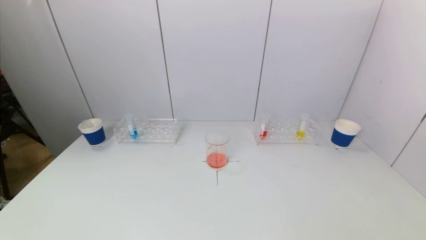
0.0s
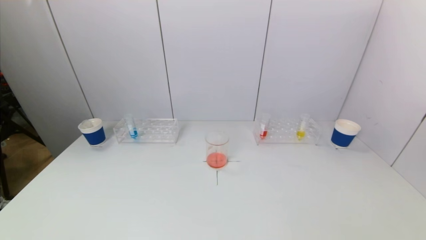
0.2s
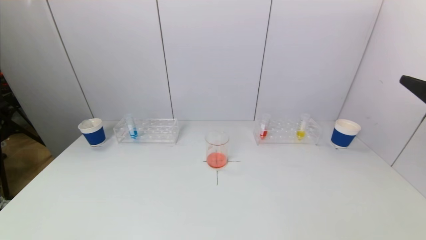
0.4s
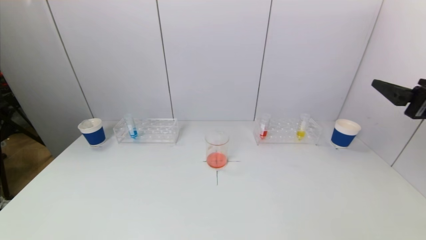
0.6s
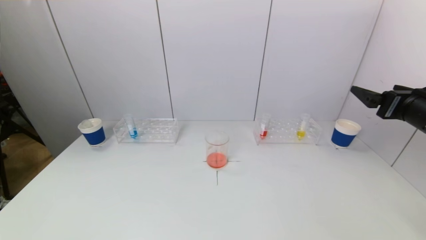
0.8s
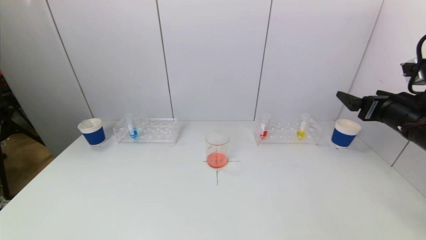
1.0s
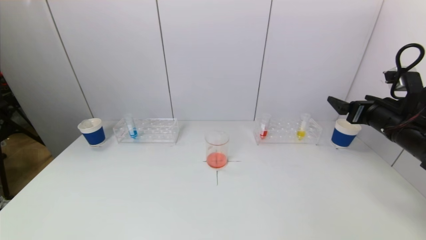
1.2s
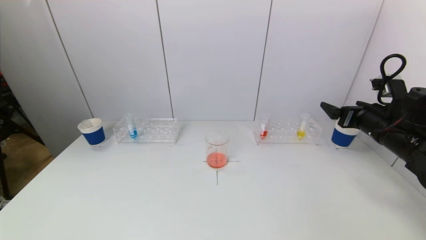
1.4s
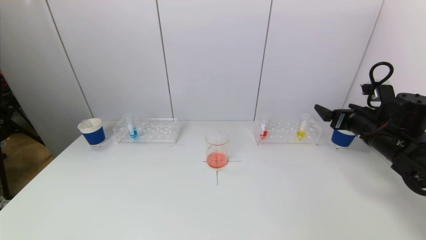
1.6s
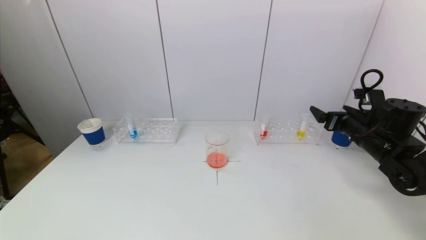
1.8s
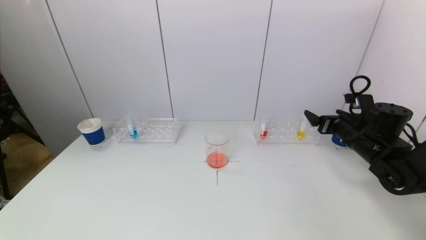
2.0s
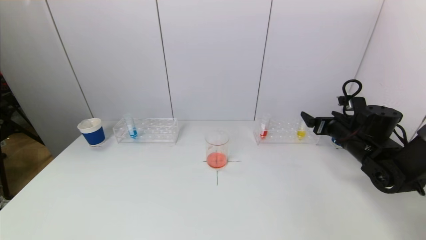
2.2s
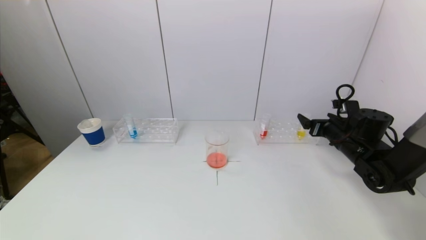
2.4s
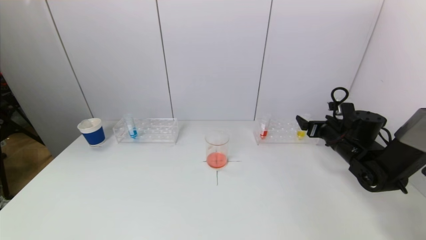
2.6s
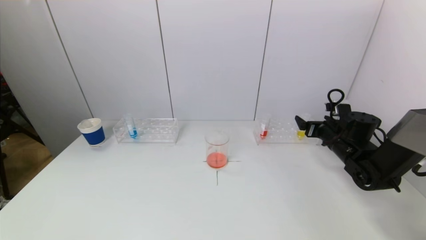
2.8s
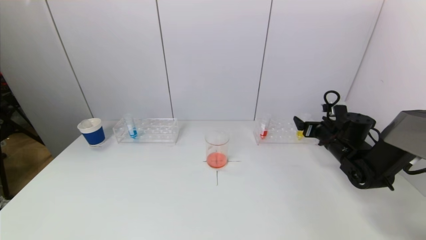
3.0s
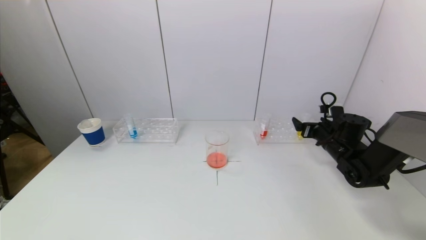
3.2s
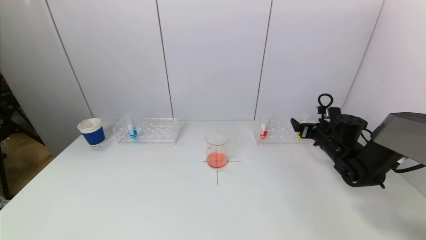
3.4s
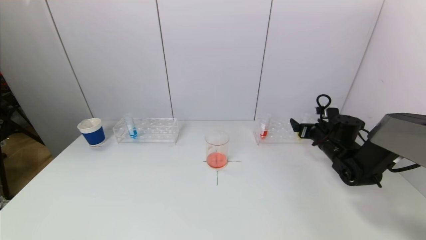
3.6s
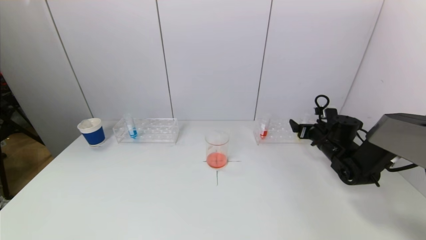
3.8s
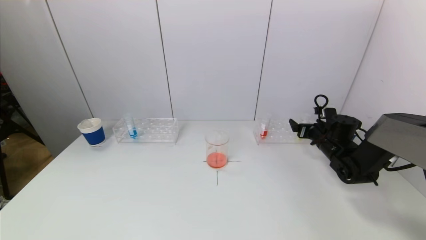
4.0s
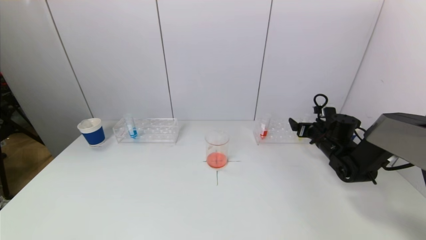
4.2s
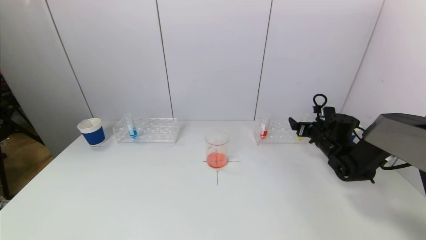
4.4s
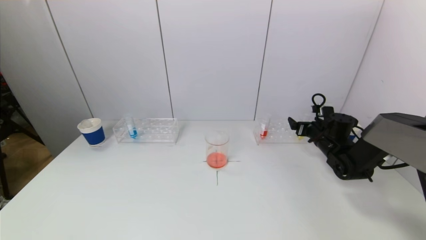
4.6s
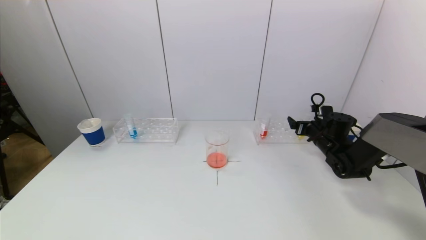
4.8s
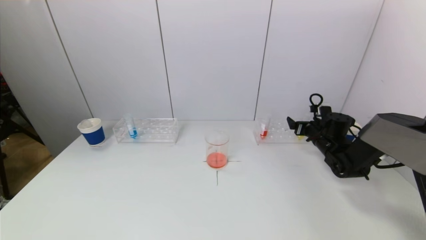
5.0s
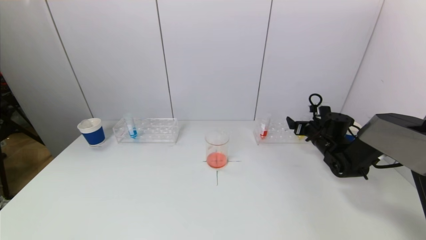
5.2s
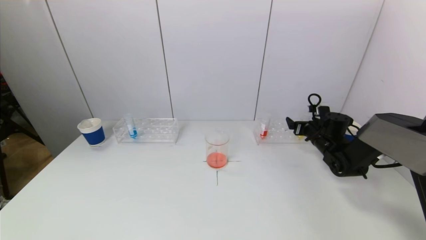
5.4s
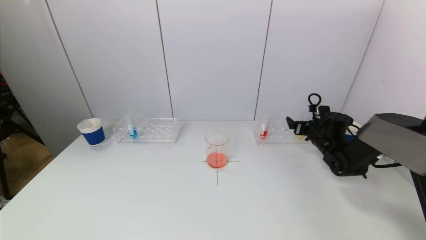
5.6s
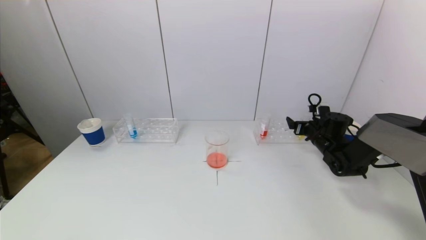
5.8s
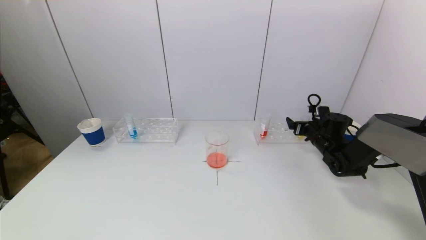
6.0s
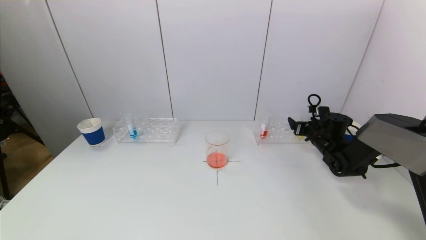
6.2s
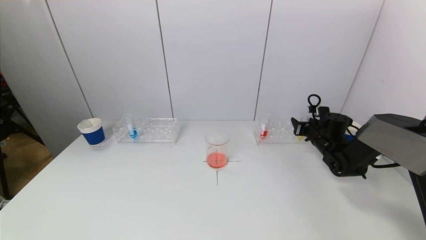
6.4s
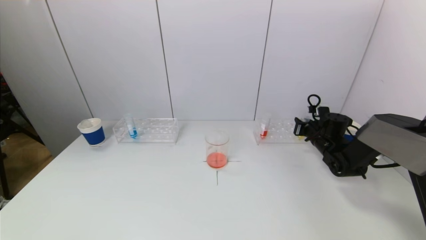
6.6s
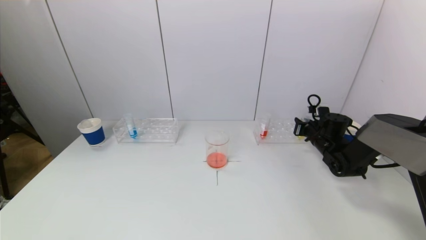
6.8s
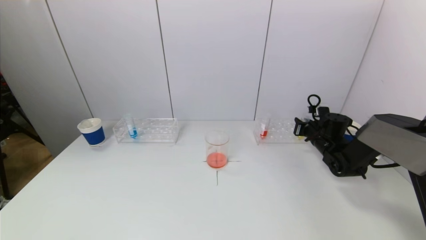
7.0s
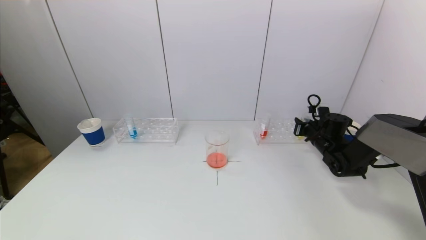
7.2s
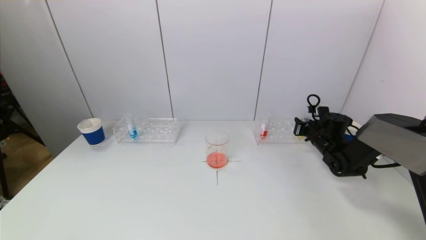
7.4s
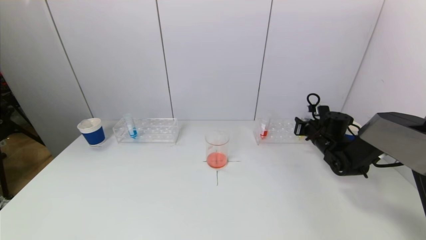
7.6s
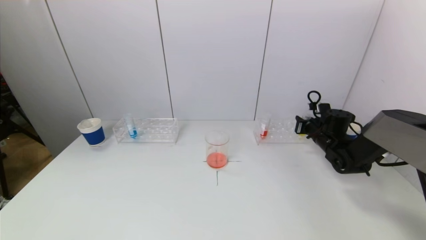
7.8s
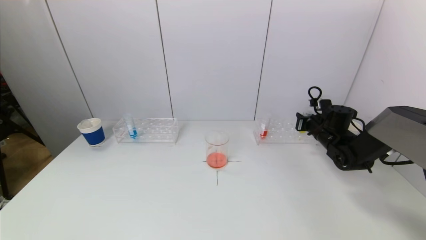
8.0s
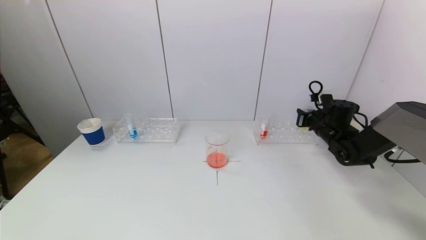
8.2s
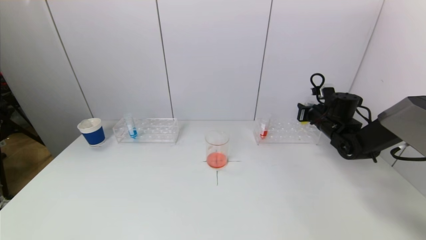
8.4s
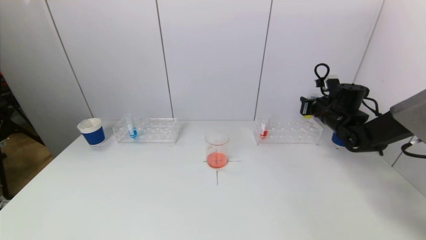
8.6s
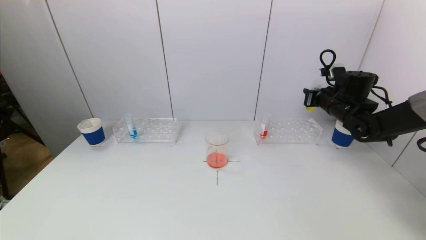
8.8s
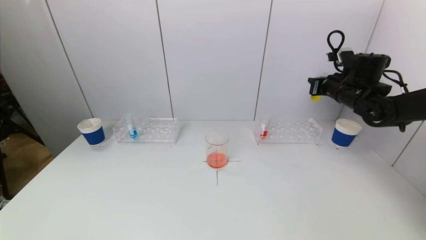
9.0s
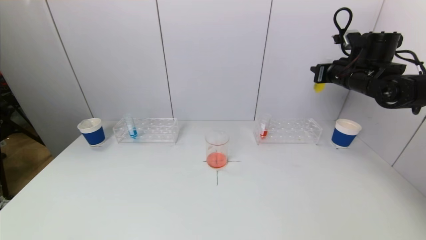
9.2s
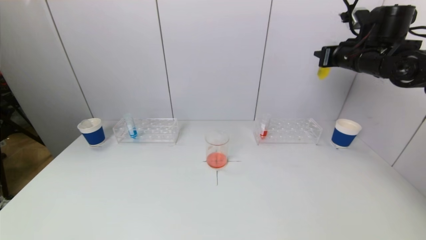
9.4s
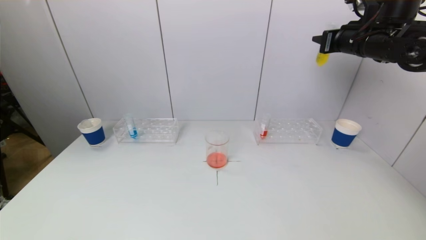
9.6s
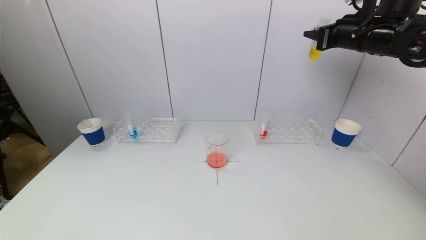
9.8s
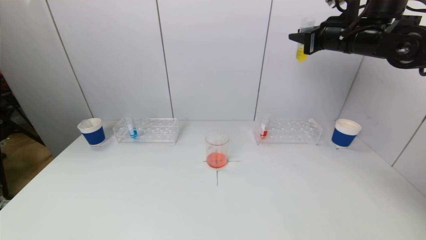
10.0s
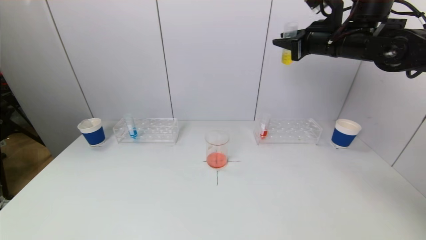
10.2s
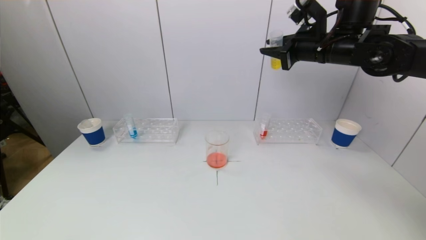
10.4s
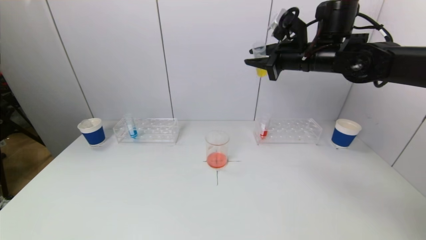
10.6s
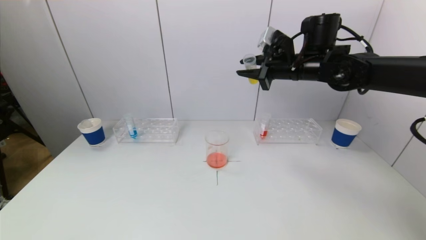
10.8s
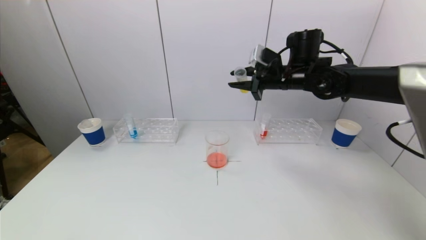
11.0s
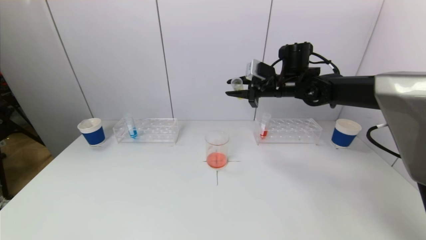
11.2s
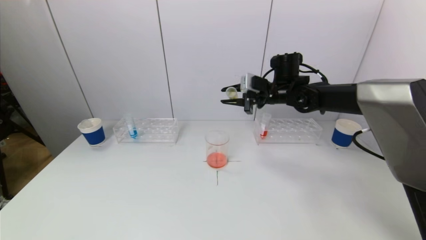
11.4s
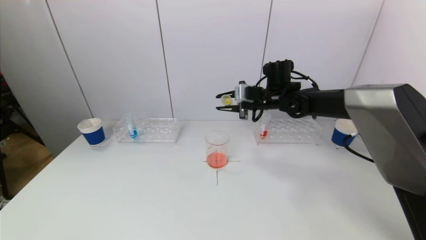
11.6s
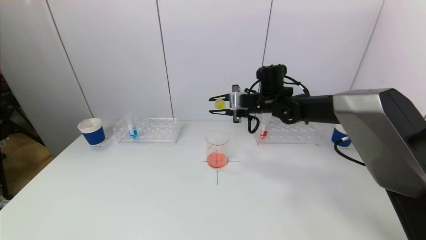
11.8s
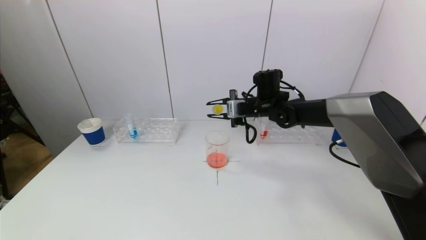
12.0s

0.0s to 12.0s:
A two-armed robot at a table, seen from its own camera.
Task of the whole recording: pick up a test tube with pigment on left test tube rack and a test tube with pigment on right test tube rack by grippers and pour them into the beaker.
Step, 0.0s to 7.2s: Grasp the yellow reagent with the right gripper.
0.0s to 1.6s: The right gripper goes roughly 30 cm forward and downward.
1.6s to 3.0s: The right gripper travels downward and forward by about 10 cm.
3.0s to 4.4s: There are only small adjustments of the grippers.
4.4s to 6.0s: The grippers move only a little.
6.0s to 7.6s: The right gripper closes up.
7.6s to 9.0s: The right gripper goes approximately 15 cm upward.
9.0s to 10.4s: The right gripper goes about 15 cm upward and to the left.
10.4s to 12.0s: The right gripper shifts roughly 20 cm downward and to the left.

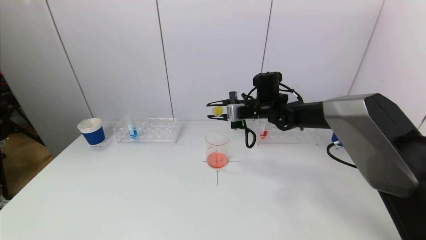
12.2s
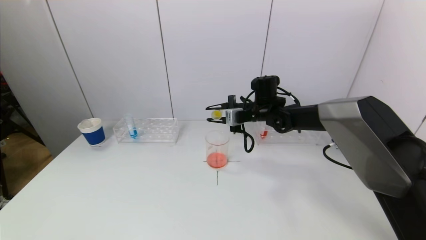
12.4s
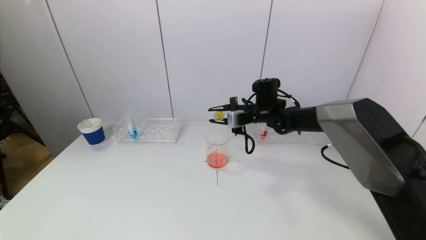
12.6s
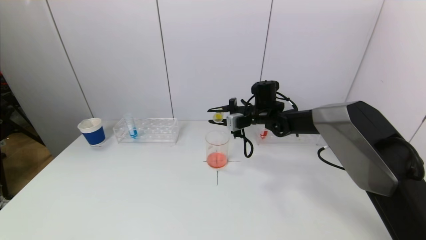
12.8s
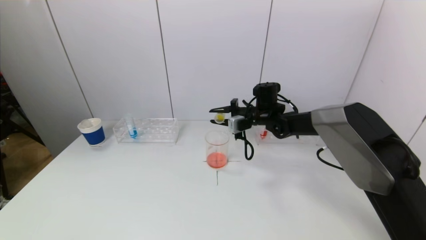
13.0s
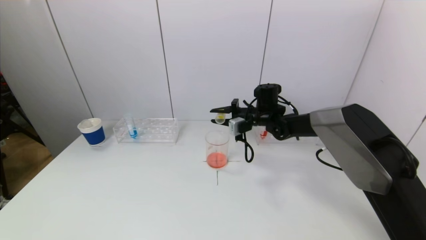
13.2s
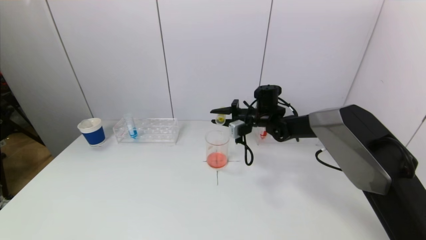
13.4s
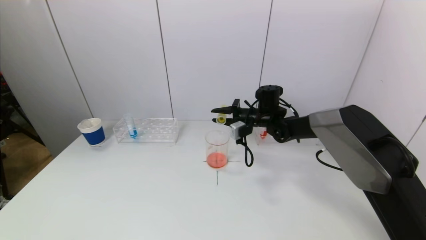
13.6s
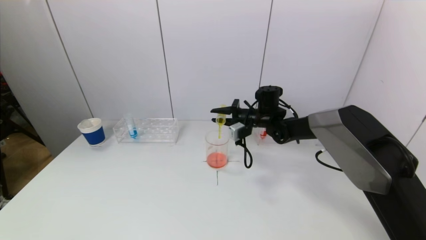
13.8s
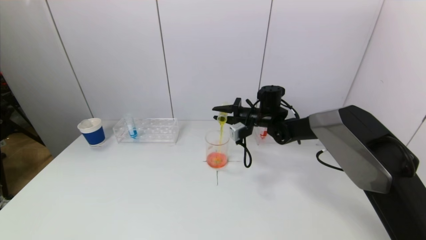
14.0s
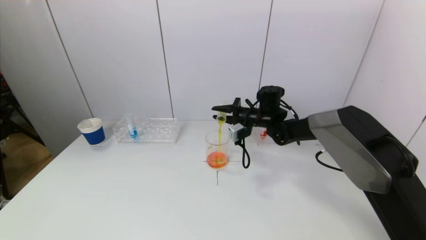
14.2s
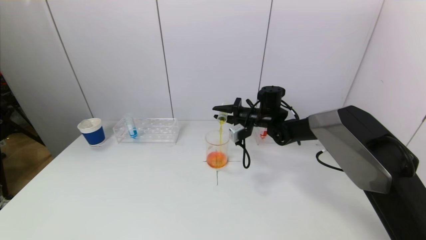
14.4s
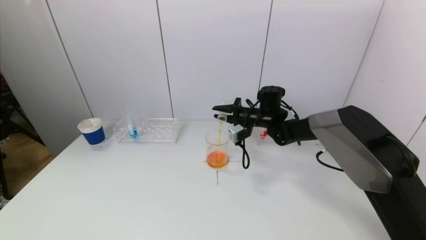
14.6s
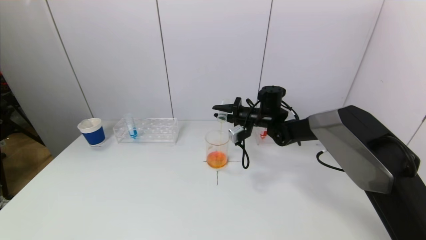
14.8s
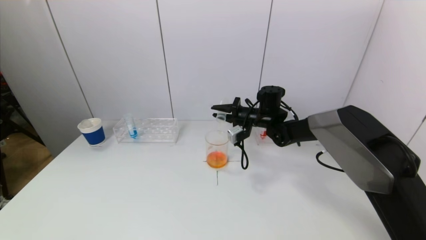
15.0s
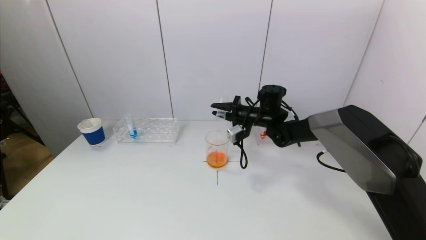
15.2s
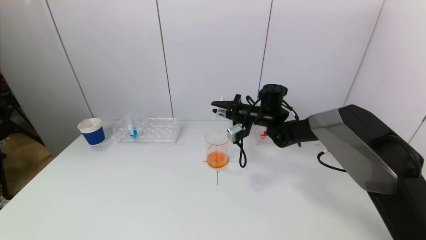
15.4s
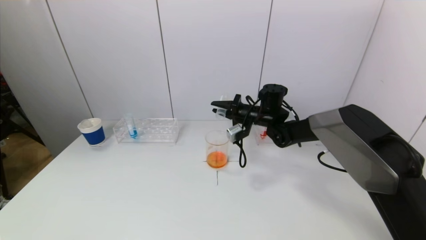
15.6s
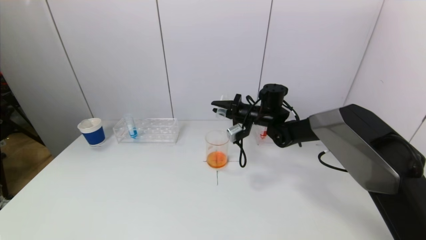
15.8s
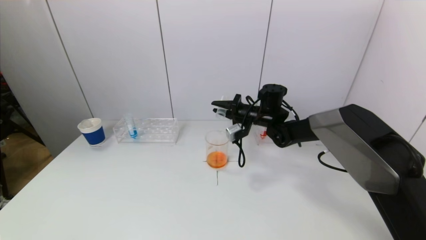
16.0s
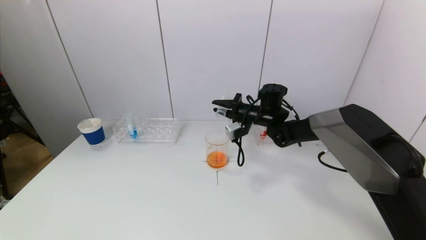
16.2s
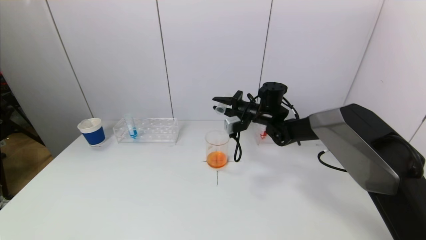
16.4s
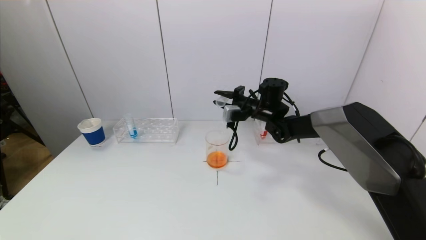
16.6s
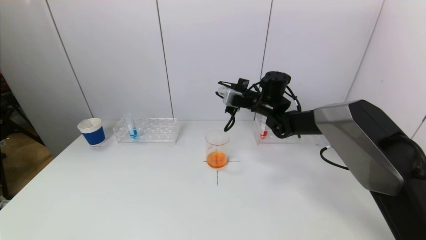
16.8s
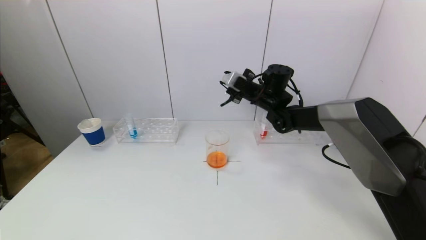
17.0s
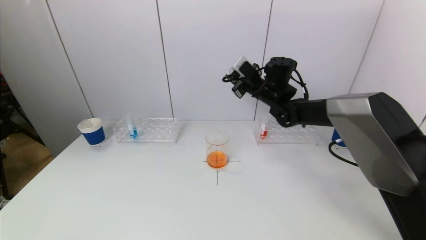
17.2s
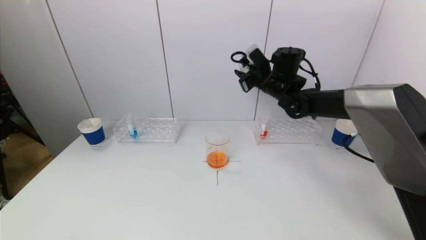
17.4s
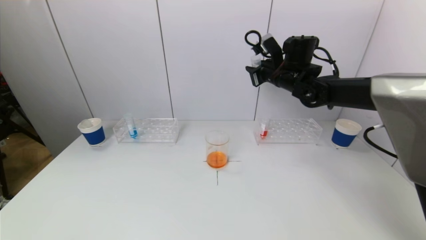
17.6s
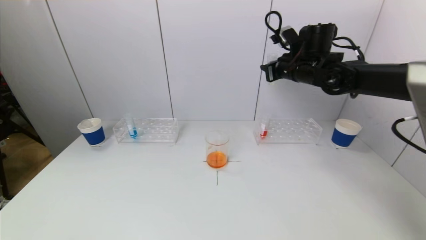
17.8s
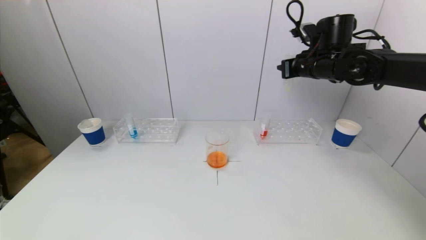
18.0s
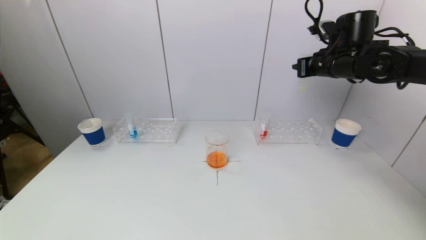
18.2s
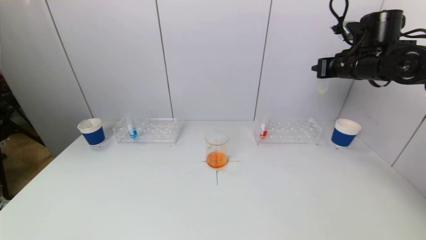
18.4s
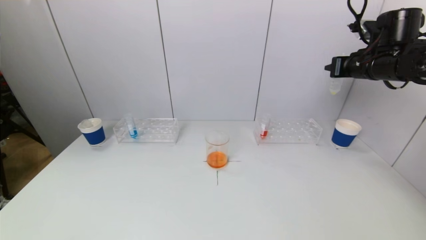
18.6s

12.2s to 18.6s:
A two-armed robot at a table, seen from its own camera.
Task of the whole recording: pick up a test tube with pigment on left test tube rack and a test tube with pigment on right test tube rack by grippers and pour them into the beaker.
Step, 12.2s to 15.2s: Pour the yellow reagent into the graduated cylinder with the right gripper.
12.2s to 13.8s: The right gripper changes place by about 5 cm.
13.8s to 15.4s: The grippers move only a little.
15.4s to 17.0s: The right gripper shifts roughly 5 cm upward.
17.0s to 18.6s: The right gripper travels to the right, upward and backward by roughly 25 cm.
